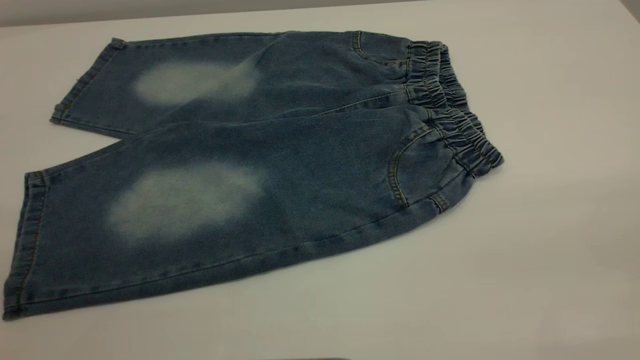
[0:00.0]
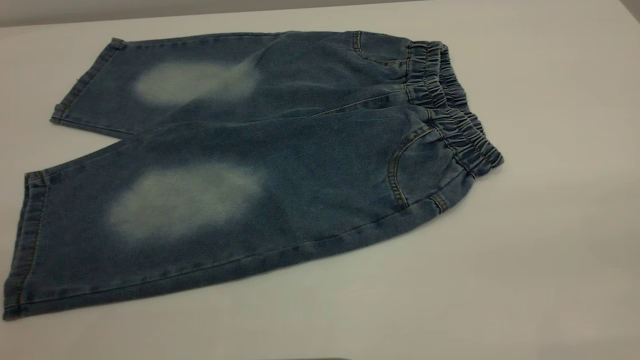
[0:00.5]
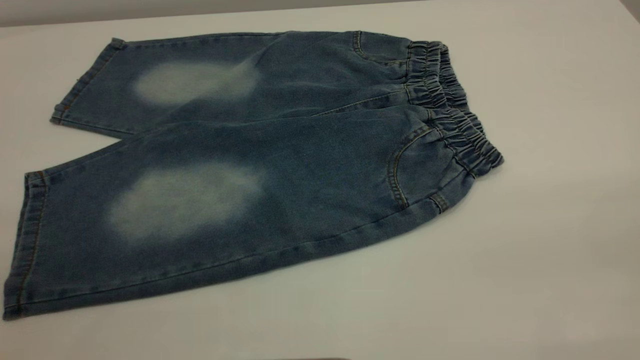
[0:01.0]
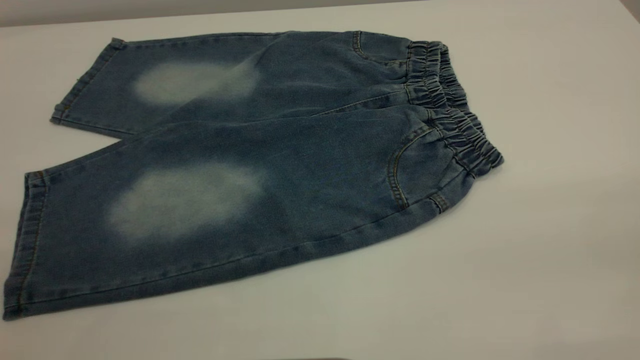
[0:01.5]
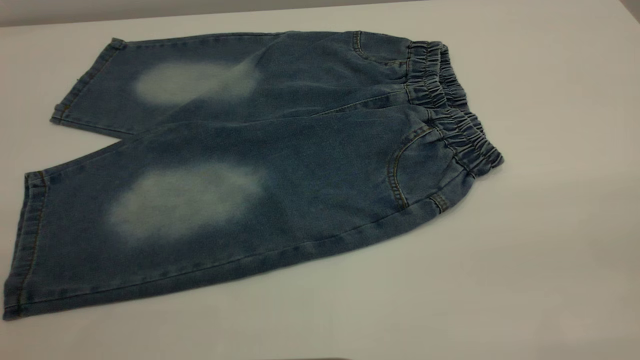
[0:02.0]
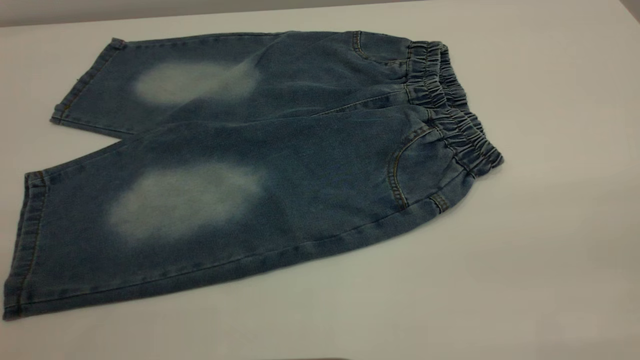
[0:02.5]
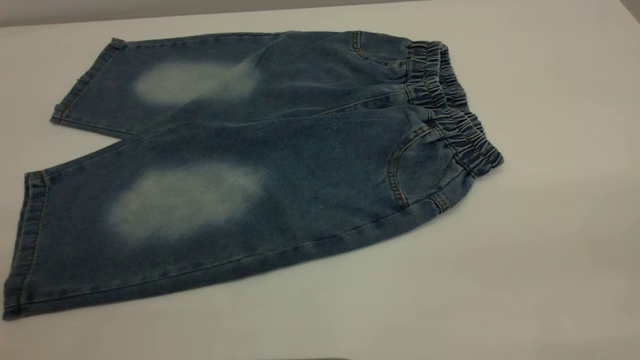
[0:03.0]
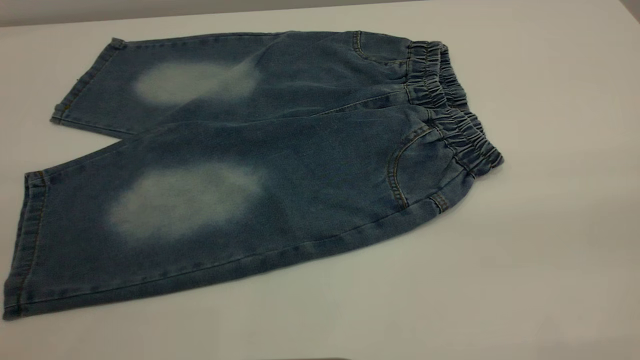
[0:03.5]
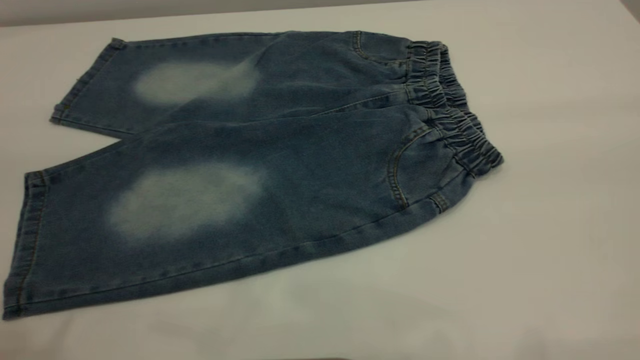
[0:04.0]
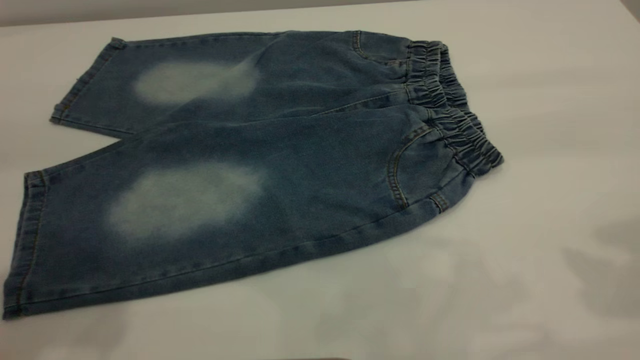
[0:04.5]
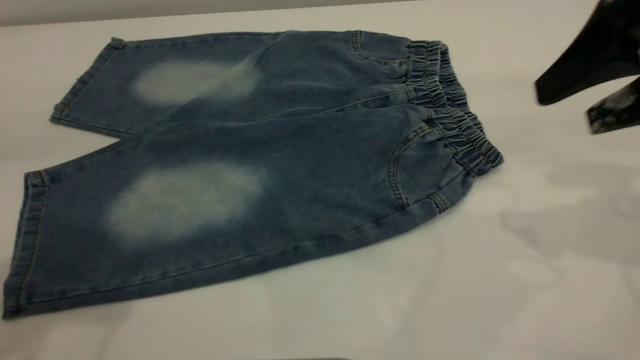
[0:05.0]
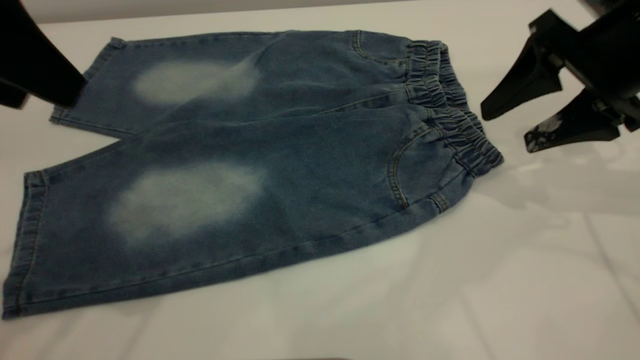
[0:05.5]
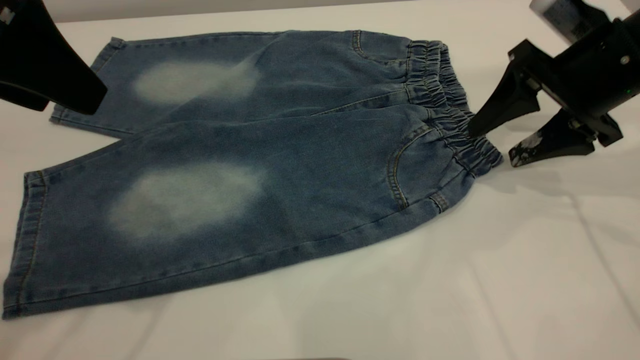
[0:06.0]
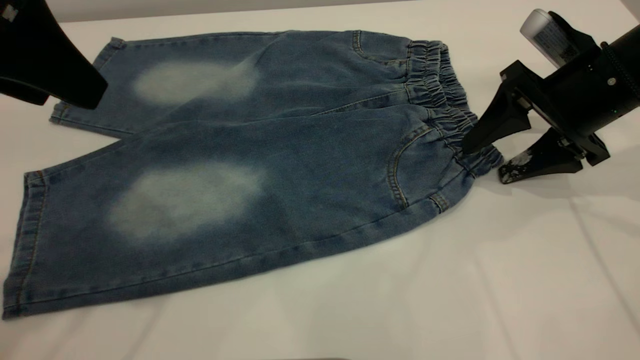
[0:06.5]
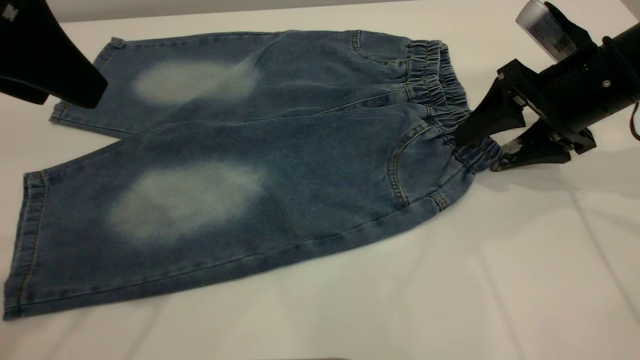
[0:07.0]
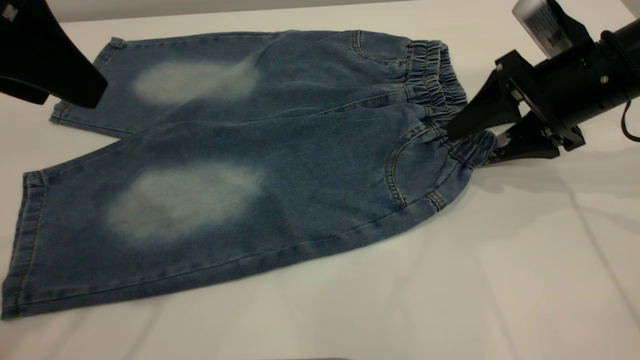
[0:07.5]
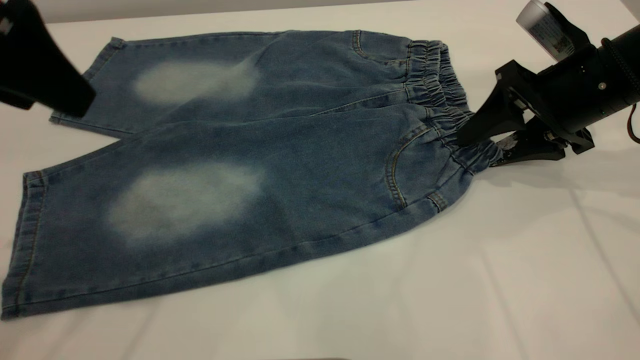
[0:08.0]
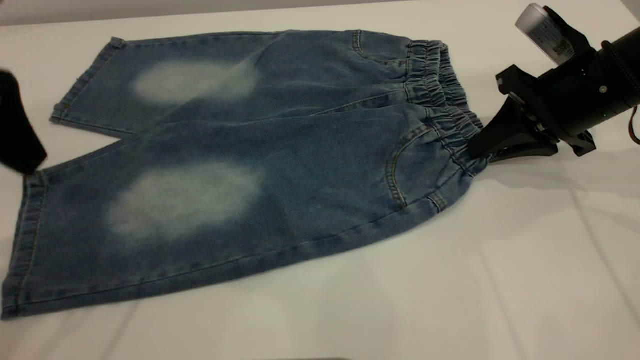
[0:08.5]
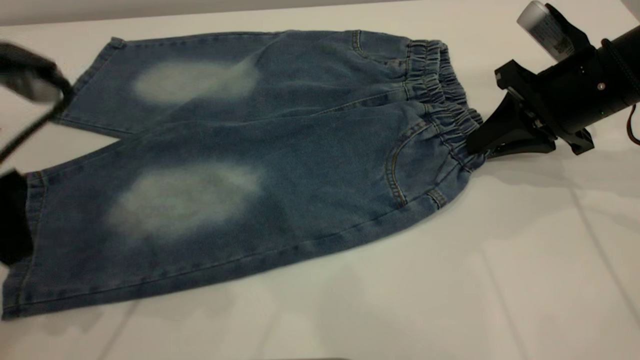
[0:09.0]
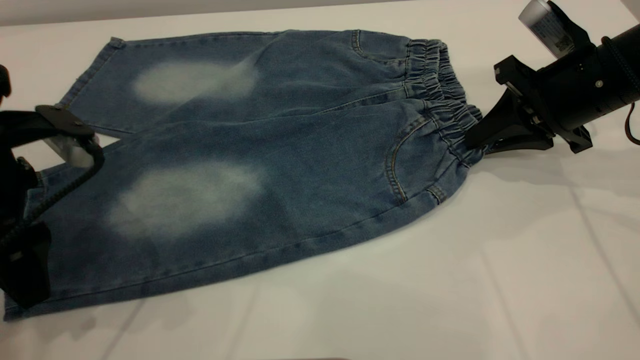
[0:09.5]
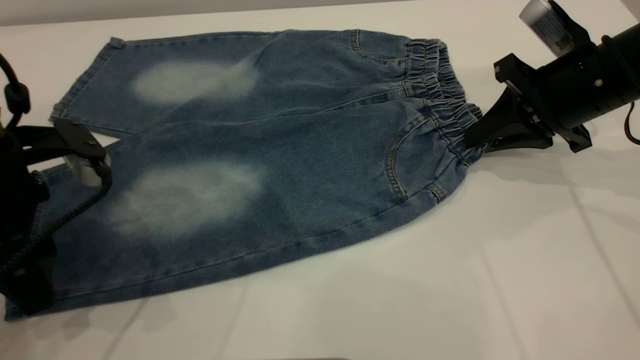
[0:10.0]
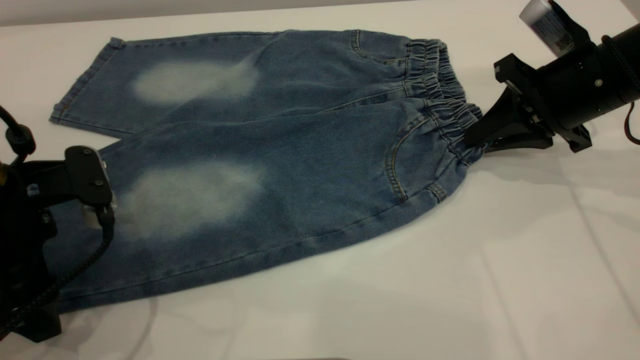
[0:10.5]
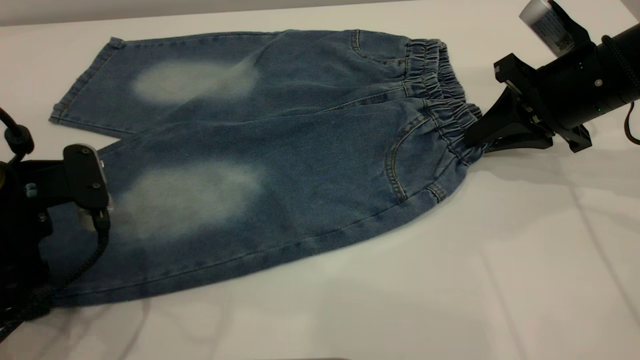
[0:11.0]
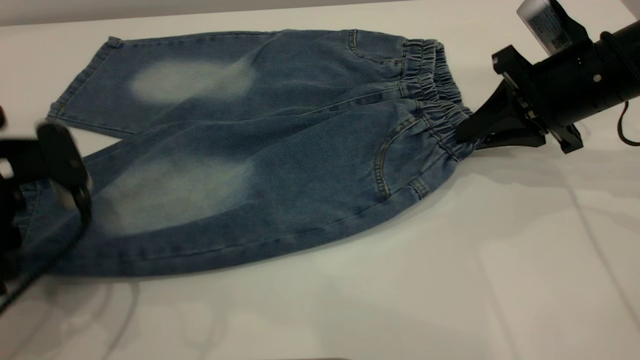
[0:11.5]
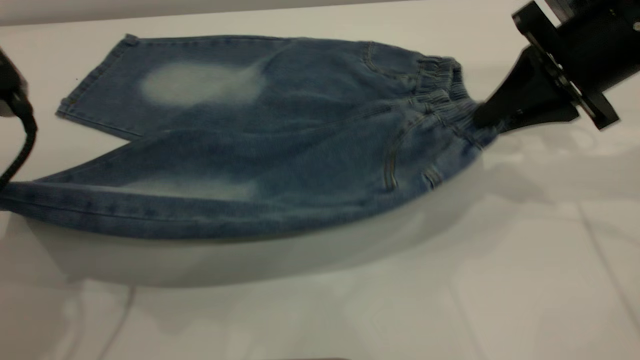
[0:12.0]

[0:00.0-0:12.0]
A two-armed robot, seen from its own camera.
0:00.0 to 0:02.0: The two grippers keep their place.
0:04.0 to 0:06.0: The left gripper goes about 15 cm forward and downward; the right gripper moves forward and downward, approximately 35 cm.
0:06.0 to 0:08.0: There are only small adjustments of the grippers.
0:08.0 to 0:10.0: The right gripper closes up; the left gripper heads downward, covering some 15 cm.
0:10.0 to 0:12.0: Both grippers travel together upward, approximately 5 cm. The left gripper closes.

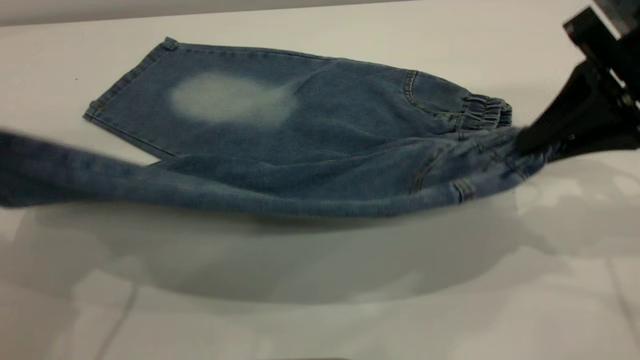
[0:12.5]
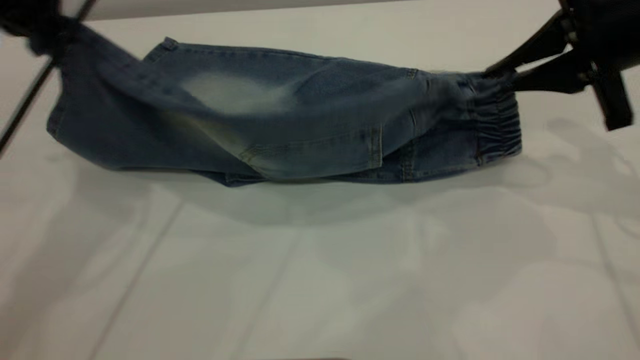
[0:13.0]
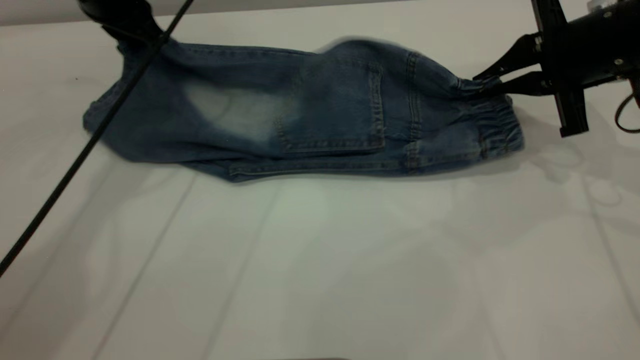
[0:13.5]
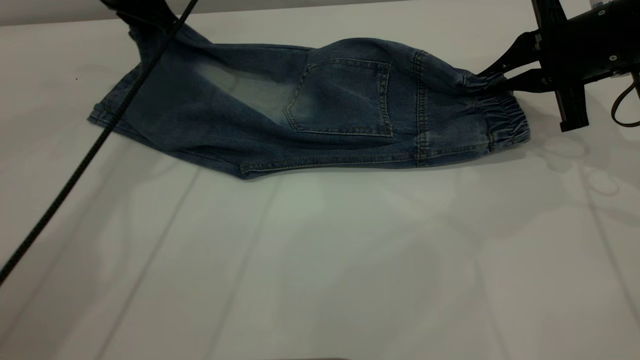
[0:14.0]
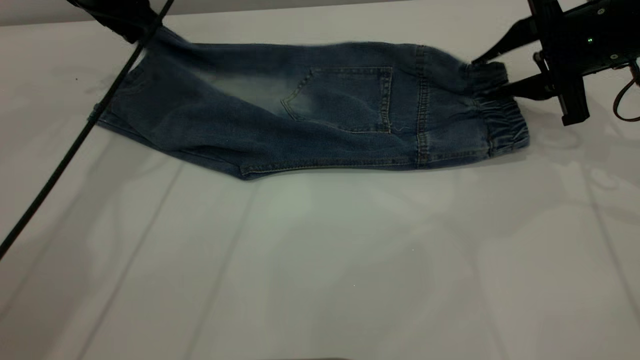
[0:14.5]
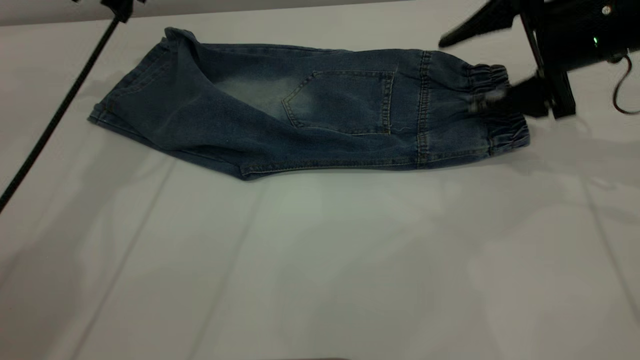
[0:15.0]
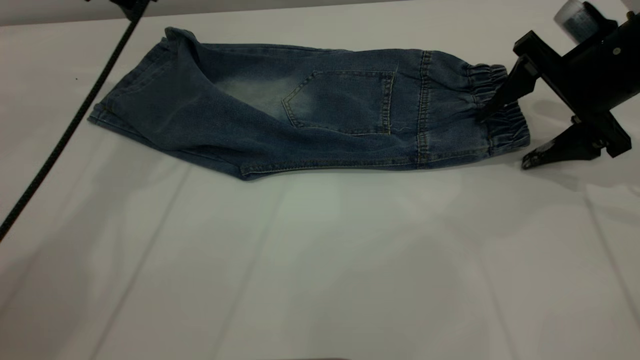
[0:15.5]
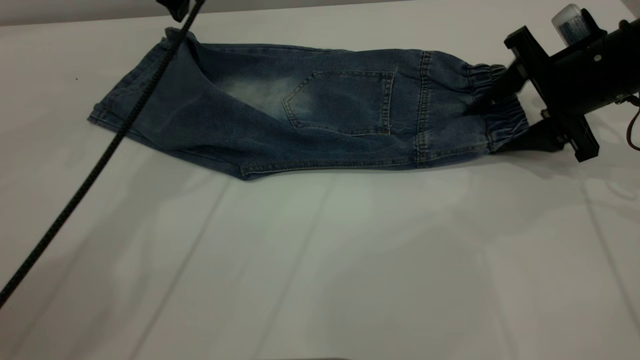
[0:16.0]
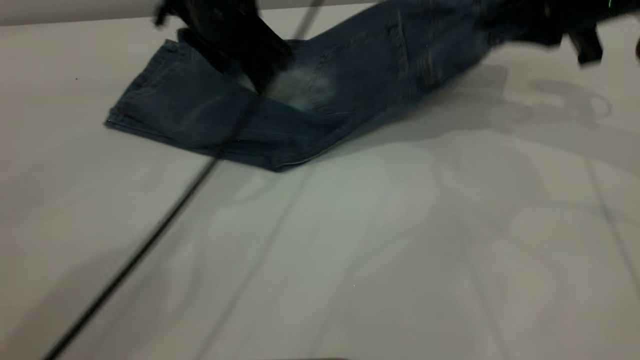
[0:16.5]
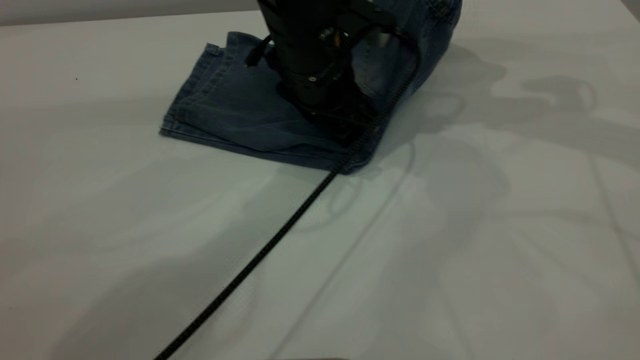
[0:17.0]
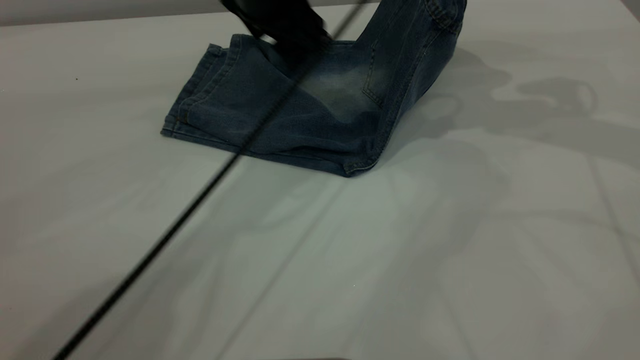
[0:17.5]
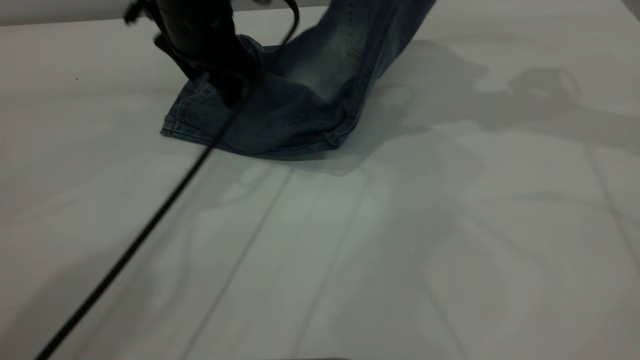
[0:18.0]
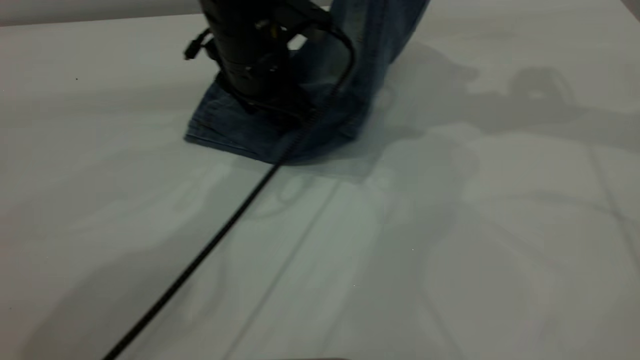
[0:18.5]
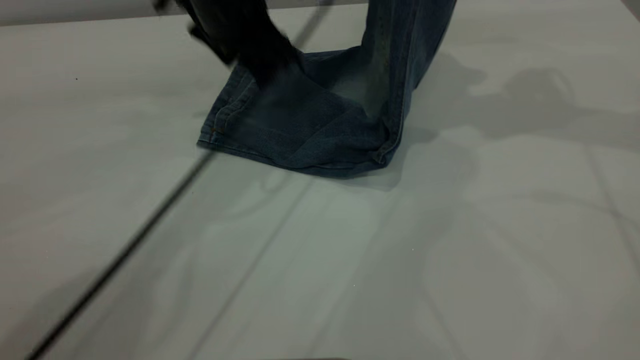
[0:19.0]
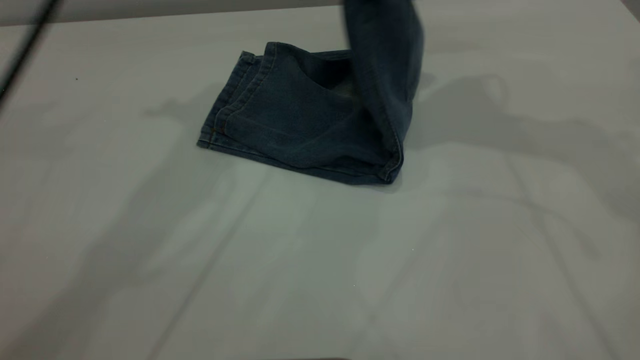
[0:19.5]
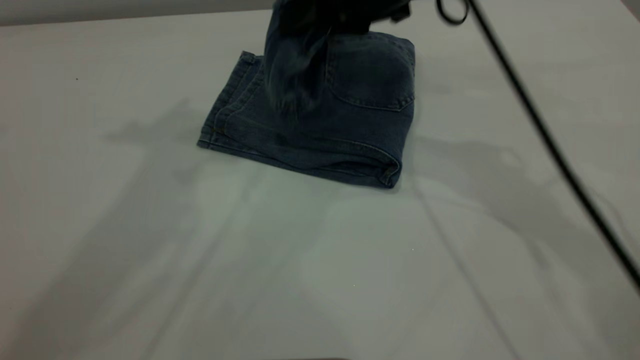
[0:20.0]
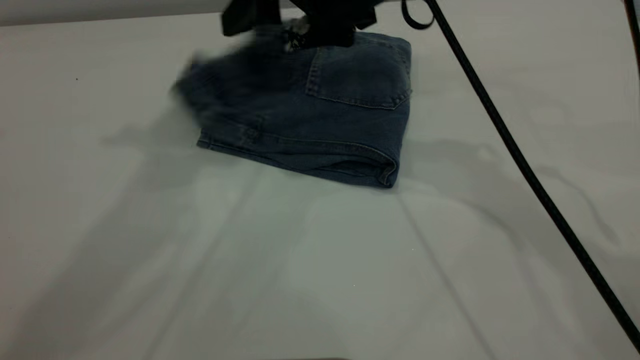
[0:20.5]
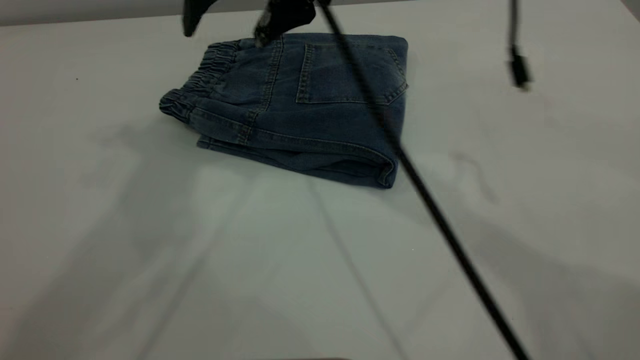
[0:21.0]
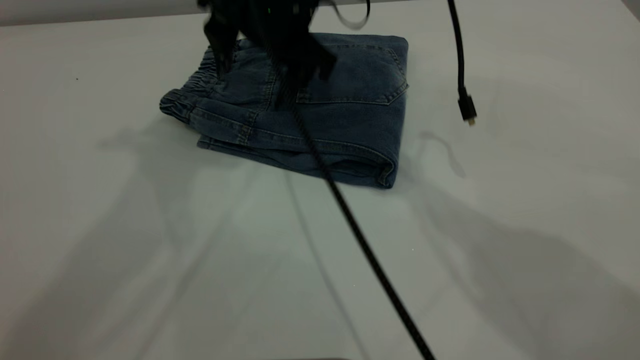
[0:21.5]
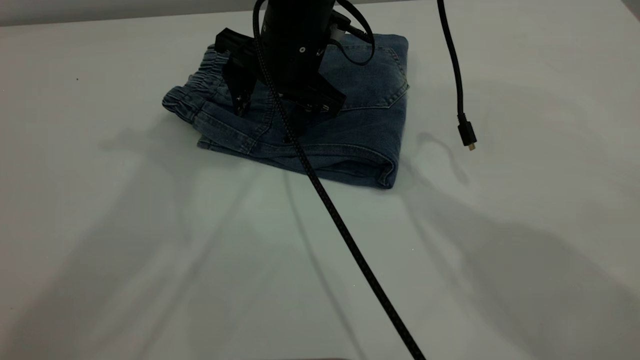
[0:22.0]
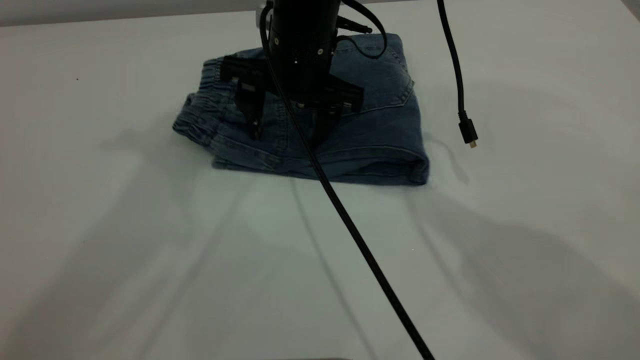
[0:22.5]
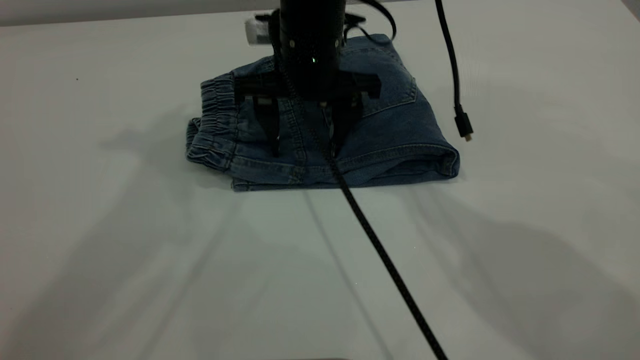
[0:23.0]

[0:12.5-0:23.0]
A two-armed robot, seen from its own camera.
Step, 0:12.5 to 0:15.0: Fold the bottom of the pants upward.
Step, 0:15.5 to 0:21.0: Fold your pants from right to left.
0:12.5 to 0:14.5: The left gripper moves forward, roughly 25 cm, and opens up, while the right gripper moves forward and downward, about 10 cm, and opens.
0:14.5 to 0:16.5: The right gripper moves upward, some 5 cm, and closes up; the left gripper is displaced to the right and backward by approximately 15 cm.
0:16.5 to 0:19.0: The right gripper goes about 10 cm upward. The left gripper swings left and right, roughly 10 cm each way, with 2 reversals.
0:19.0 to 0:21.0: The right gripper goes some 25 cm to the left, and opens up; the left gripper moves upward, roughly 25 cm.
0:21.0 to 0:23.0: The right gripper travels downward by about 10 cm.
